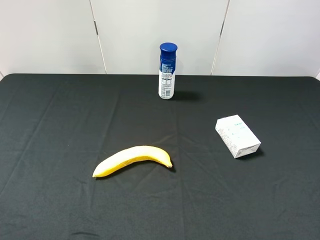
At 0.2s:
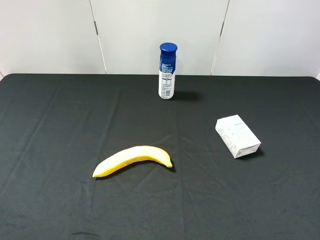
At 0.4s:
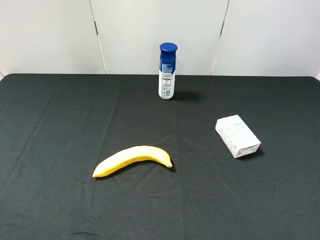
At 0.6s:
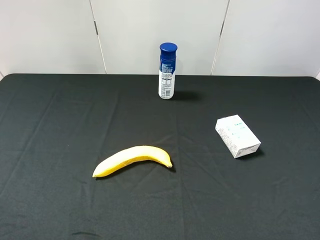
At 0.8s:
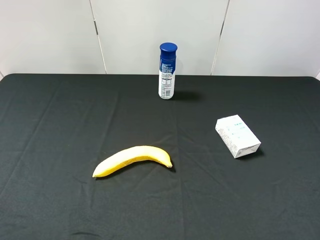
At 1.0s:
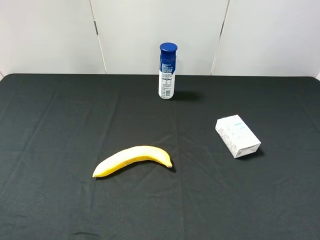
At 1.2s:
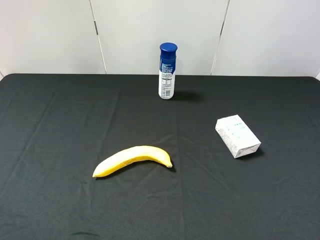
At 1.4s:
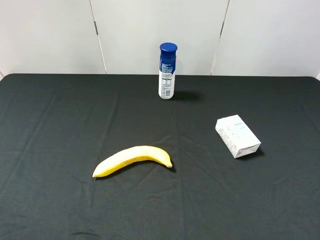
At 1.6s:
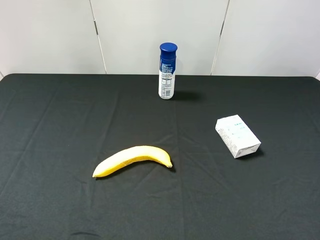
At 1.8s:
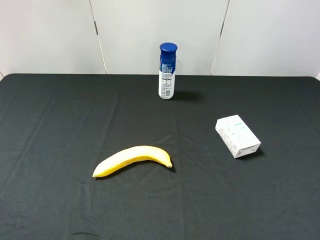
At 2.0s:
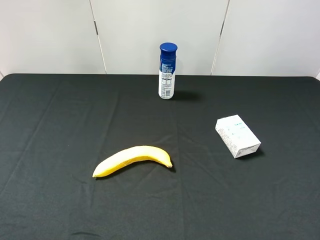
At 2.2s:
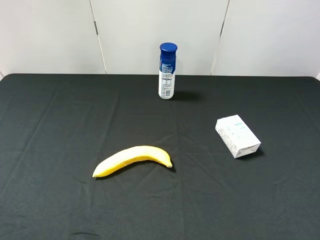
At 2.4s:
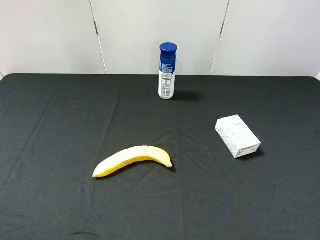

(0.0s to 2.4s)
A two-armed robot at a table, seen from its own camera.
Task of the whole recording: use the left gripper to pick up the item and transfer it from the left gripper to the right gripper.
1.2s - 2.4s: Neither gripper changes place.
